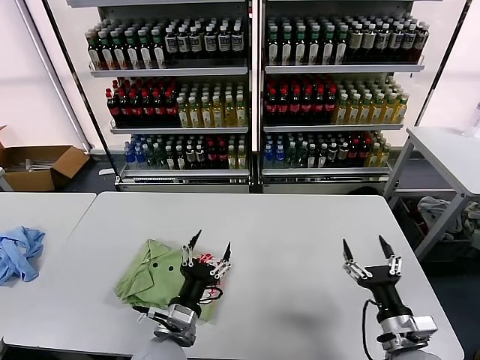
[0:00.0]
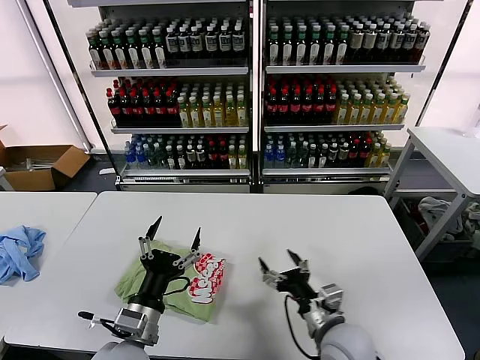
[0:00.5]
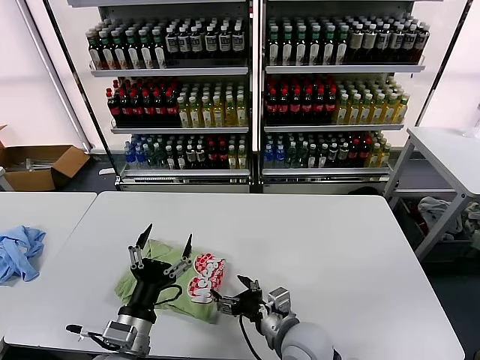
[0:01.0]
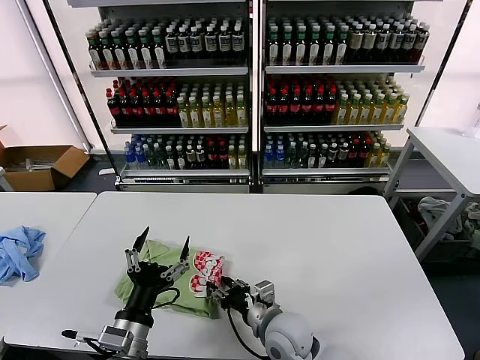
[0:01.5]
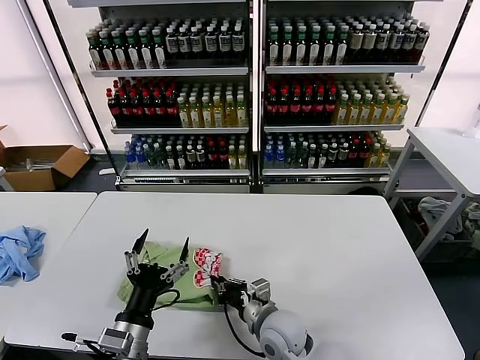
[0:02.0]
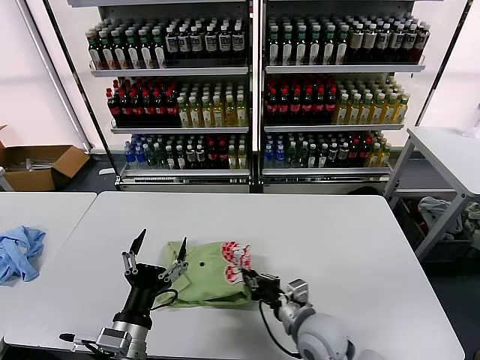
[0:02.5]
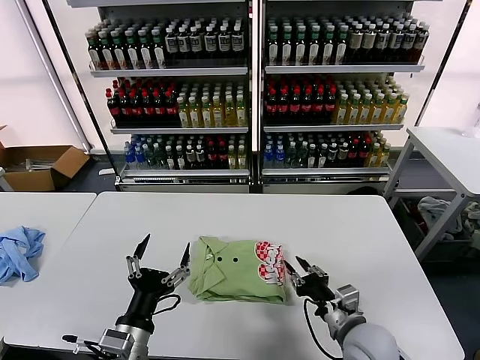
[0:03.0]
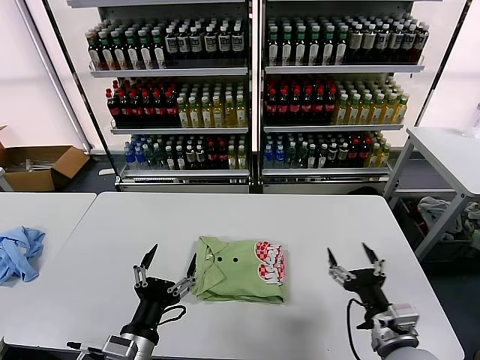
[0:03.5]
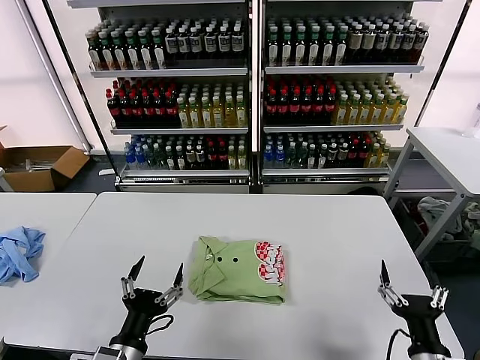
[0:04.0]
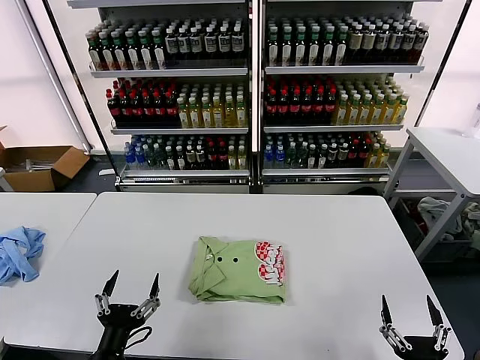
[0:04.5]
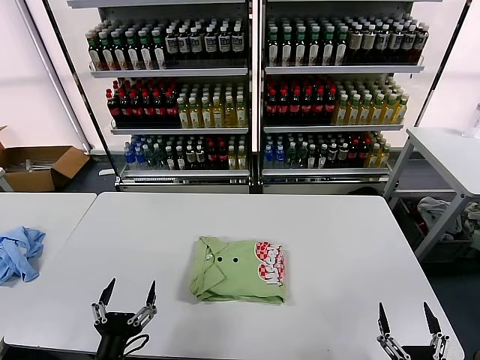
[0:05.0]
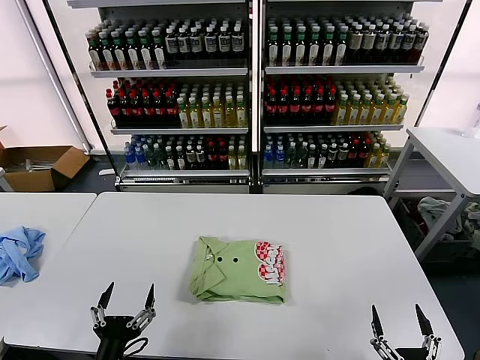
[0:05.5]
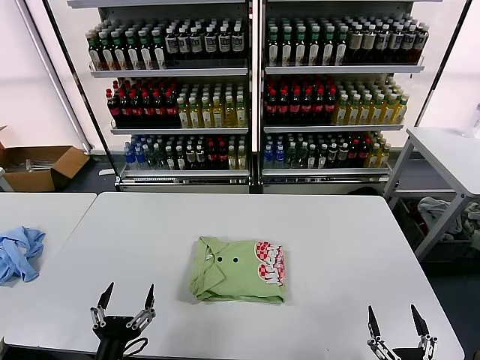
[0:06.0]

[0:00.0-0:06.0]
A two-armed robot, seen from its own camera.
Task of the whole recording: fold and organize the clothes.
Step, 0:00.0 to 0:02.5: Drag the clothes to the center of the table.
0:00.0 to 0:02.0: The left gripper shifts roughly 5 cm to the left; the right gripper goes some 25 cm to the left and forward, and closes.
0:02.0 to 0:04.0: The right gripper is displaced to the right and backward by roughly 30 cm, and opens.
0:04.0 to 0:06.0: The left gripper ends up some 5 cm from where it was. Meanwhile the right gripper heads backward and downward, covering approximately 10 cm.
